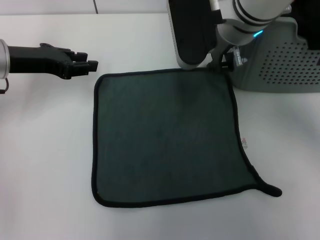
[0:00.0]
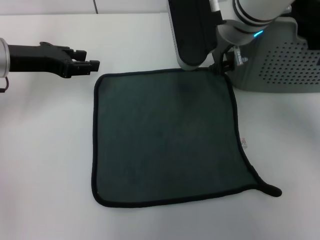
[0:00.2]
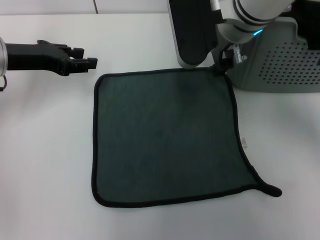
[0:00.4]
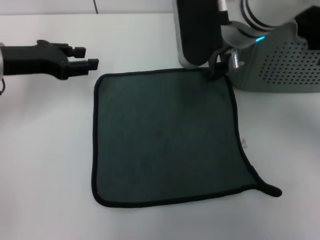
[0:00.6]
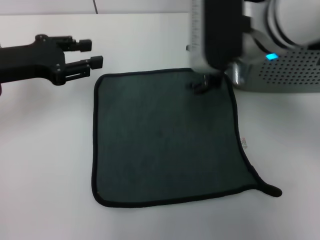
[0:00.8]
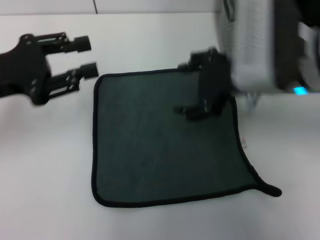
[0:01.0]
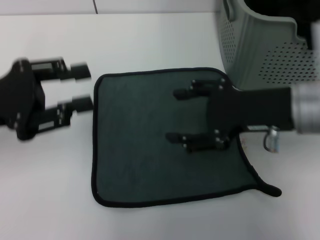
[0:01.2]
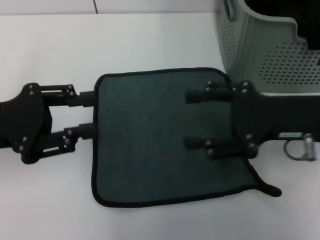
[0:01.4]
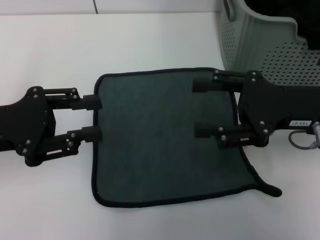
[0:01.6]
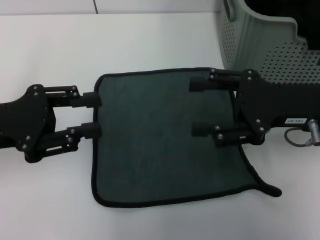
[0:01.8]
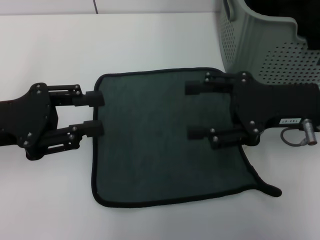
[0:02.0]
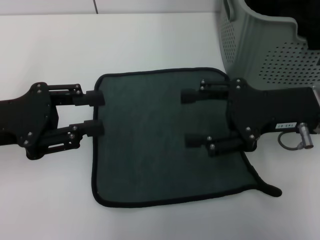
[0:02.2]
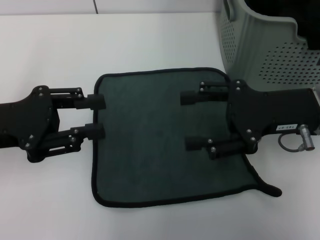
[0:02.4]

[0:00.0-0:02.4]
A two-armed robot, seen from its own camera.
Task of the whole recording: pick up the towel from the storage box and lay it flat on the table.
0:00.0 to 0:01.2: The right gripper heads backward and to the right, covering roughly 15 cm, and opens, while the left gripper heads backward, covering about 10 cm, and opens up.
